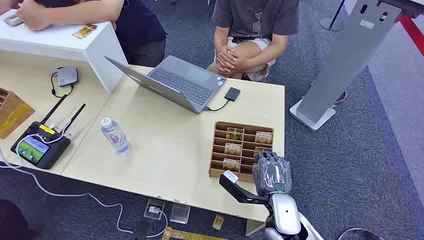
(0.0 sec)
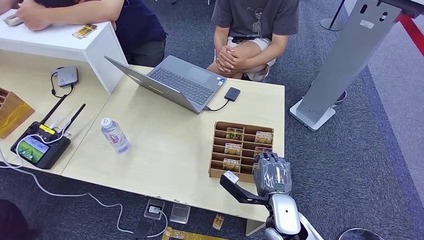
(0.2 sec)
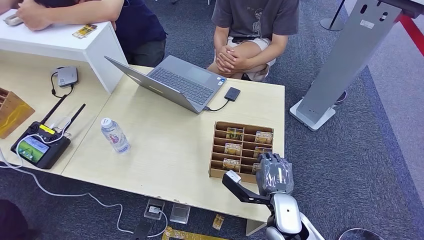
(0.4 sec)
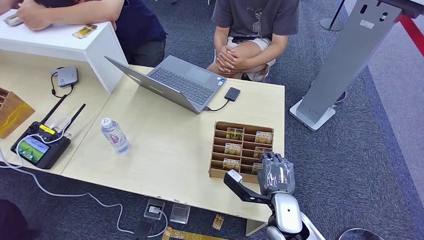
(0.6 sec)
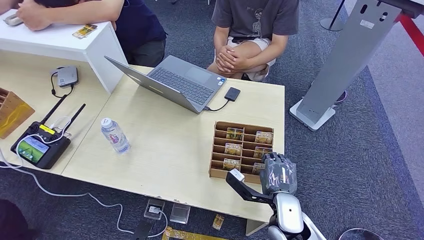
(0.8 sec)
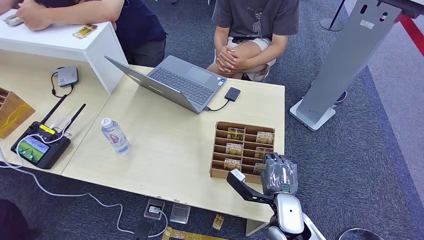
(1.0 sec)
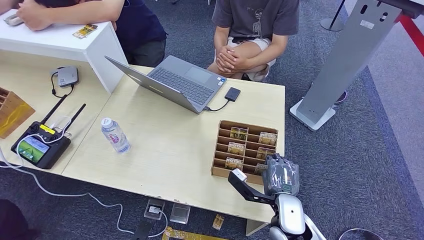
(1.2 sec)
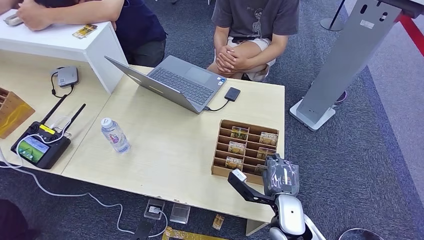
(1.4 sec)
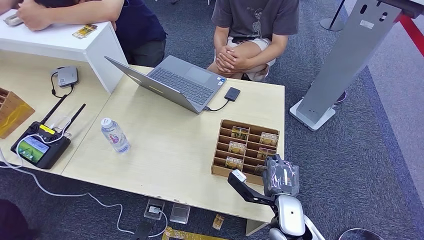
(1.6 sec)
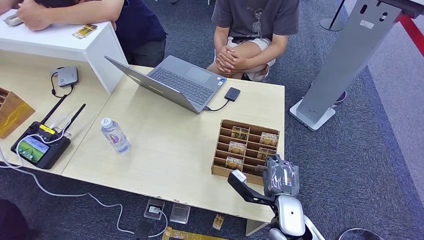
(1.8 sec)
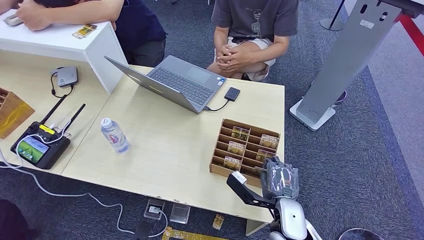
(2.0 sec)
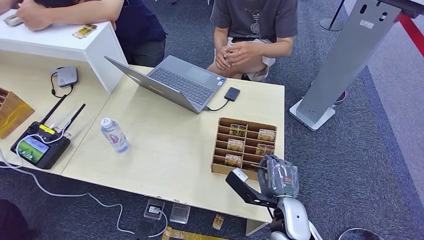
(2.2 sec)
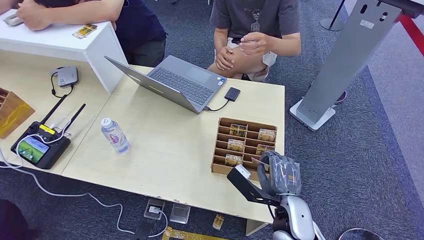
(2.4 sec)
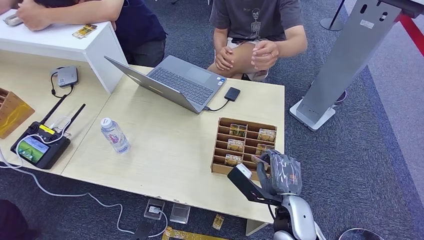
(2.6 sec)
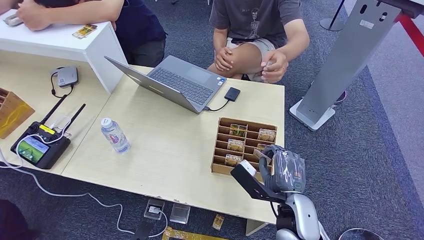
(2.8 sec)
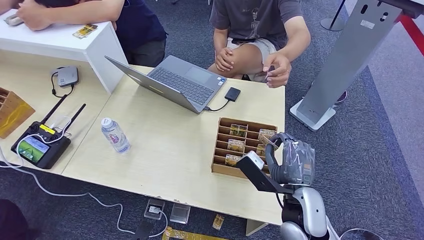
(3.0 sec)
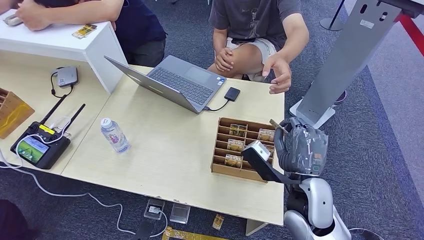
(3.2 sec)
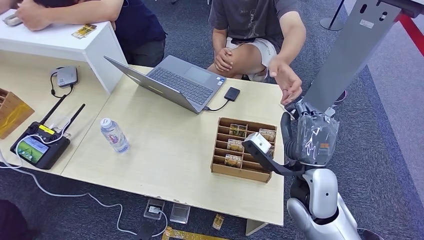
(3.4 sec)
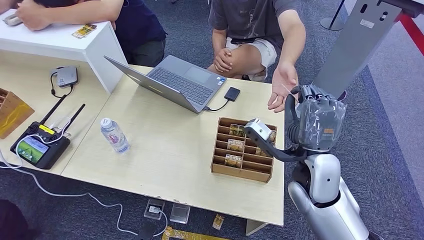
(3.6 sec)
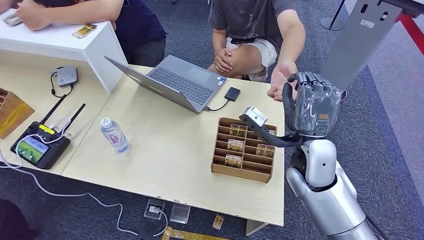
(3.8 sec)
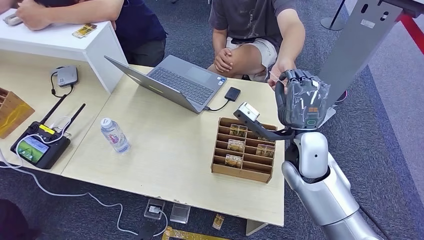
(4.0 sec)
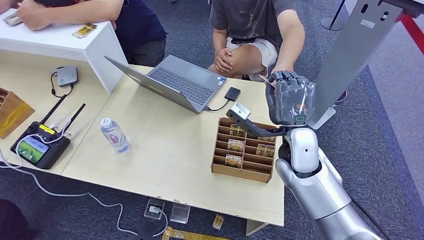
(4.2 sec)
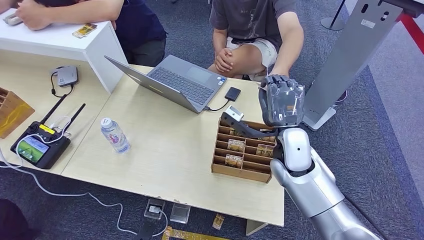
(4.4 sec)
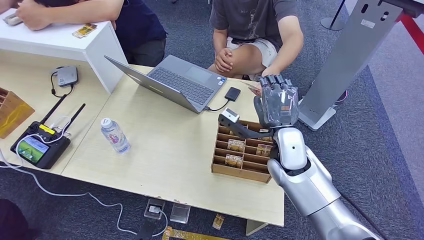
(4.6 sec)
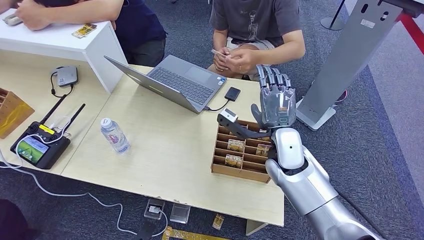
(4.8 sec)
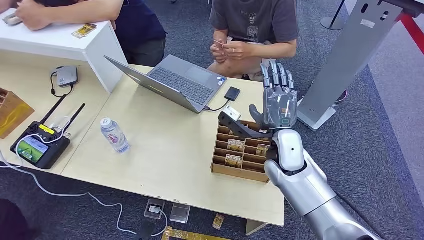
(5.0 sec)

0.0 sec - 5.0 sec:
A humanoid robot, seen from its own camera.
Step, 0.0 sec - 2.6 sec: Pick up the key card from the card box.
Step, 2.8 sec - 4.8 sec: Hand the key card to the target.
1.6 sec - 3.4 sec: The right hand heads upward, covering about 10 cm.
3.4 sec - 5.0 sec: The right hand heads forward, covering some 10 cm.
